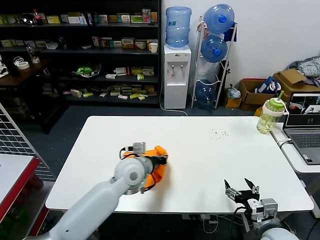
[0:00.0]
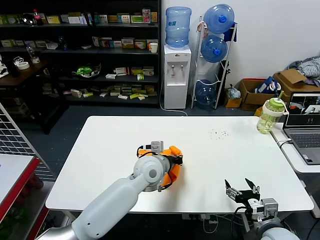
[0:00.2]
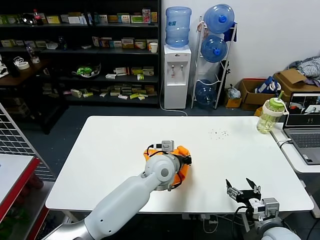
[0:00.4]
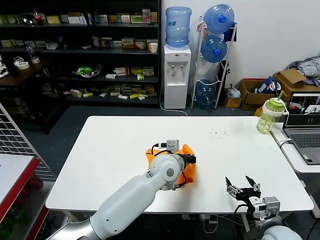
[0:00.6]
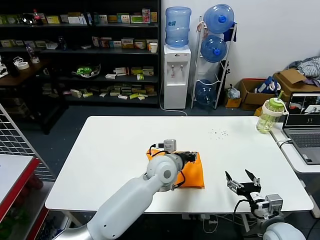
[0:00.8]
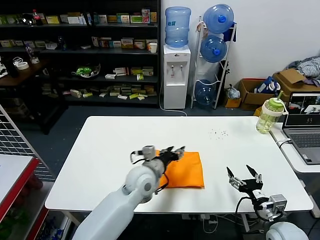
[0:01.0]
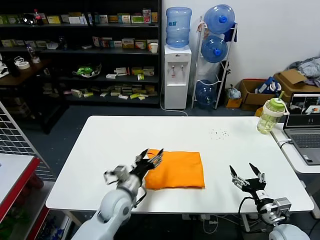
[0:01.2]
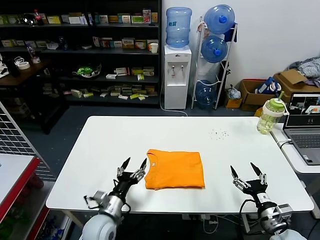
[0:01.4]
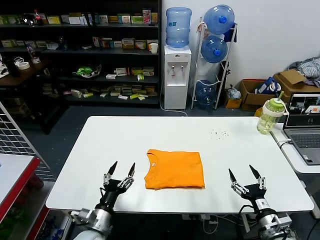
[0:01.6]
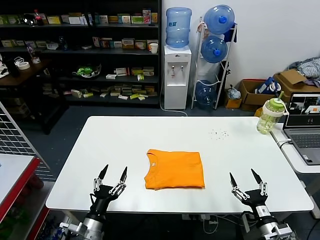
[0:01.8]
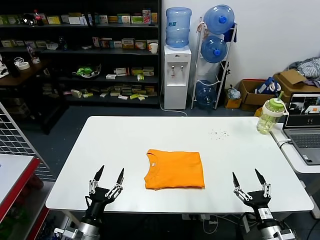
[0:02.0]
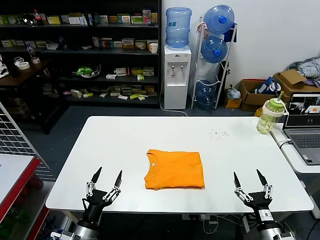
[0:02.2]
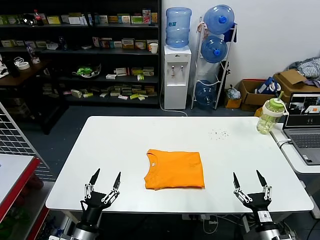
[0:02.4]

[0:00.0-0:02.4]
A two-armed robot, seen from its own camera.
Task of the whole recording: fold and organize the clothes.
0:00.0 to 0:01.2: The left gripper travels downward by approximately 5 cm, goes to the right and returns, roughly 15 cm each way, and opens its fingers. The right gripper ends up some 5 cm from where it was.
0:01.2 to 0:02.4: The right gripper heads backward, covering some 5 cm; the left gripper is displaced backward and to the left by approximately 20 cm.

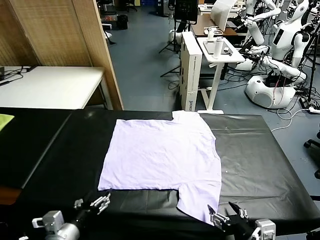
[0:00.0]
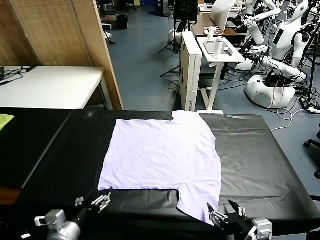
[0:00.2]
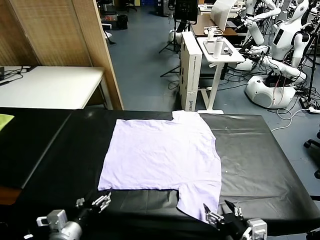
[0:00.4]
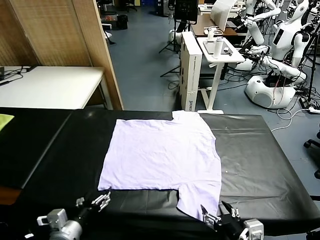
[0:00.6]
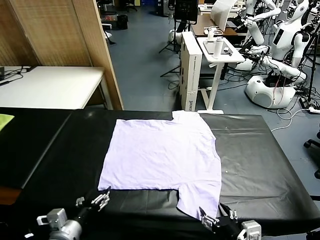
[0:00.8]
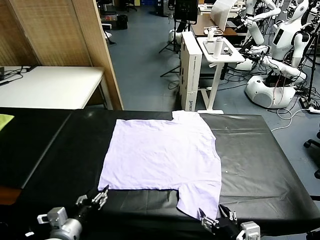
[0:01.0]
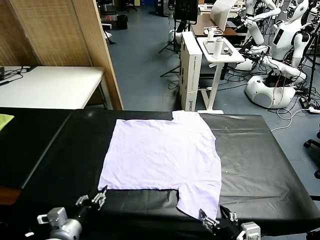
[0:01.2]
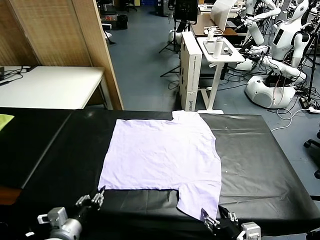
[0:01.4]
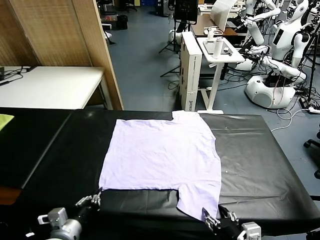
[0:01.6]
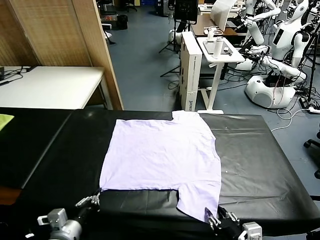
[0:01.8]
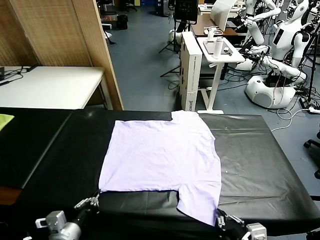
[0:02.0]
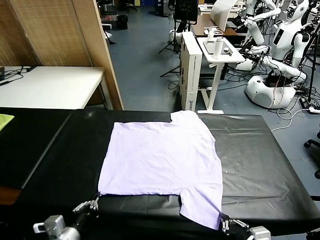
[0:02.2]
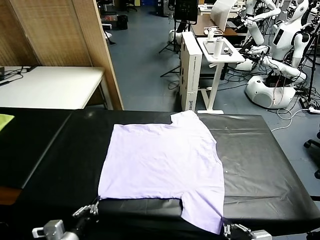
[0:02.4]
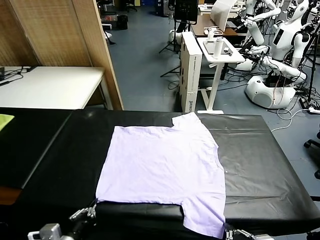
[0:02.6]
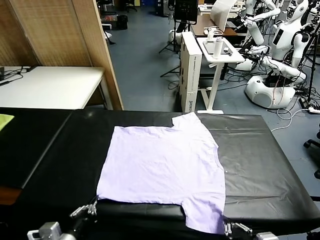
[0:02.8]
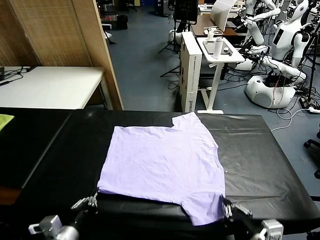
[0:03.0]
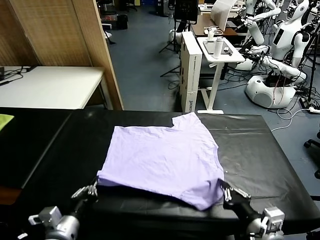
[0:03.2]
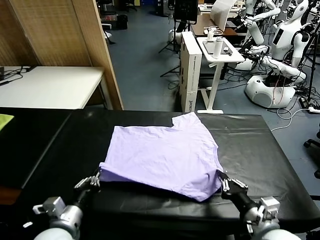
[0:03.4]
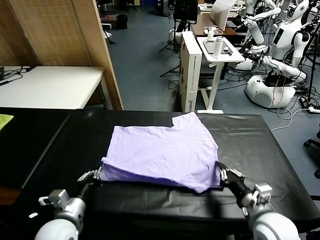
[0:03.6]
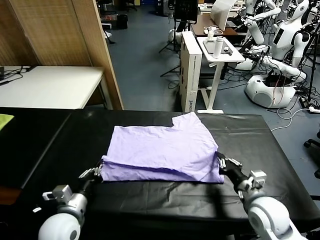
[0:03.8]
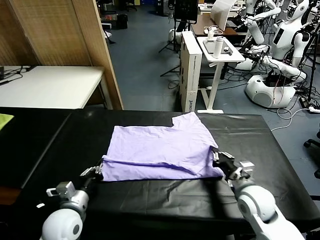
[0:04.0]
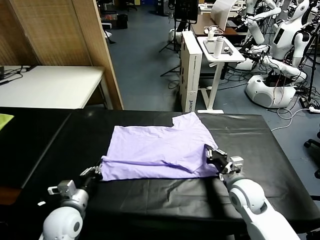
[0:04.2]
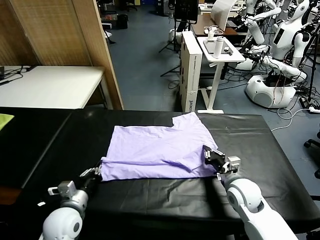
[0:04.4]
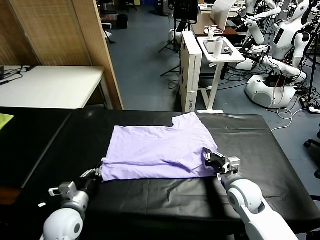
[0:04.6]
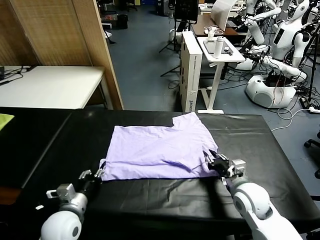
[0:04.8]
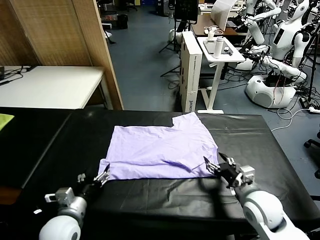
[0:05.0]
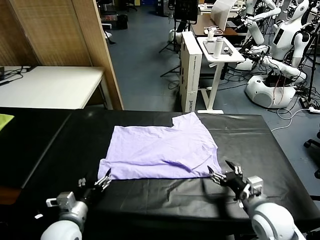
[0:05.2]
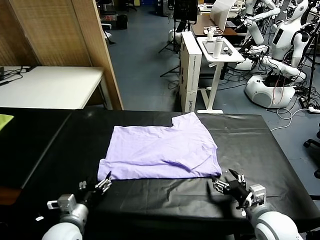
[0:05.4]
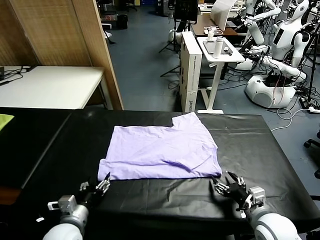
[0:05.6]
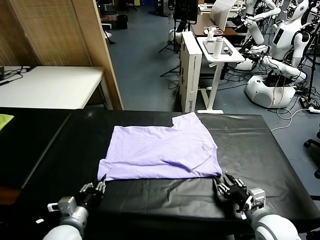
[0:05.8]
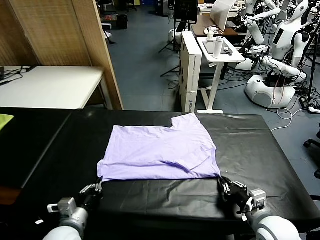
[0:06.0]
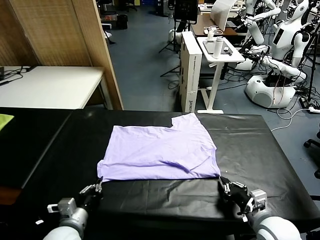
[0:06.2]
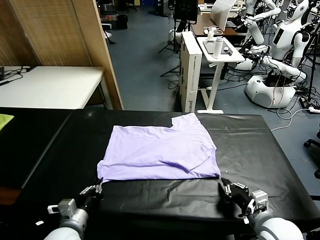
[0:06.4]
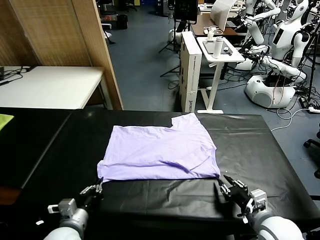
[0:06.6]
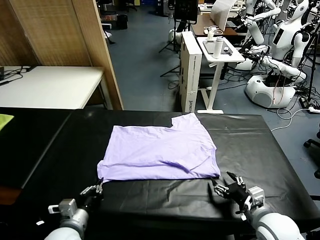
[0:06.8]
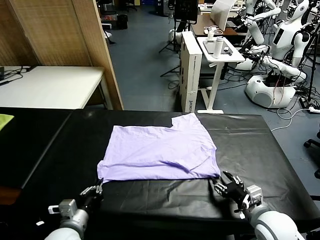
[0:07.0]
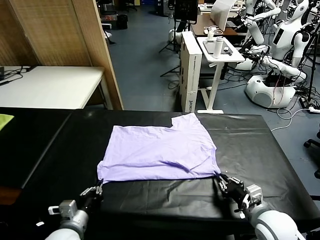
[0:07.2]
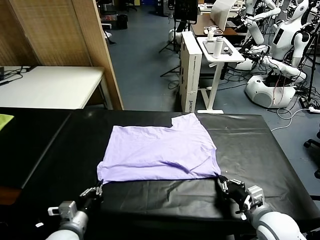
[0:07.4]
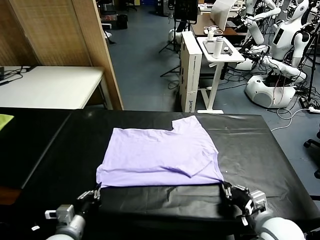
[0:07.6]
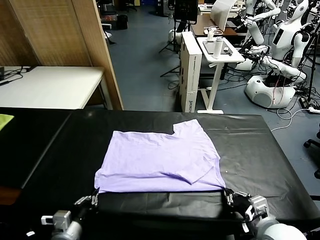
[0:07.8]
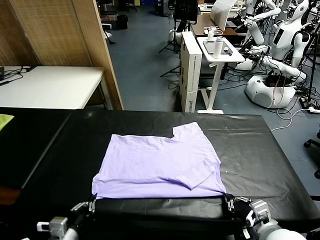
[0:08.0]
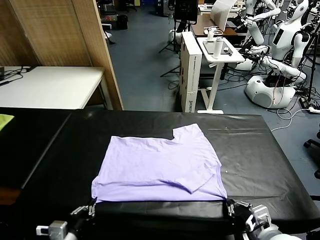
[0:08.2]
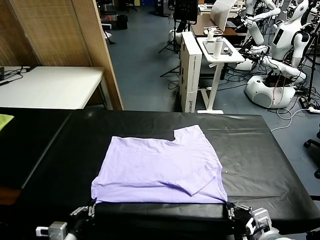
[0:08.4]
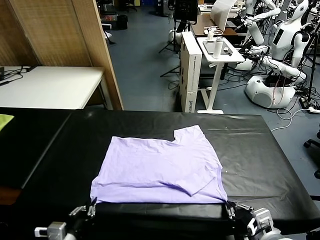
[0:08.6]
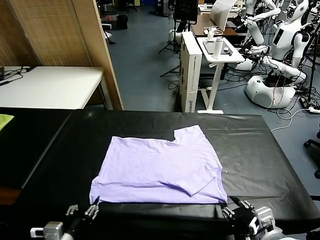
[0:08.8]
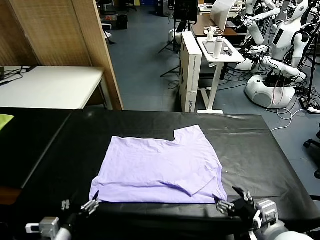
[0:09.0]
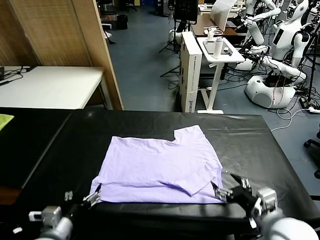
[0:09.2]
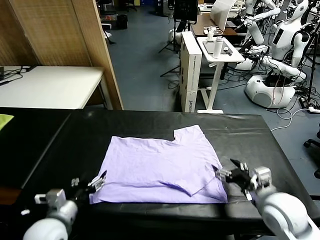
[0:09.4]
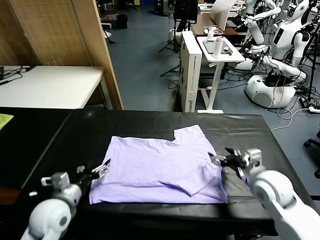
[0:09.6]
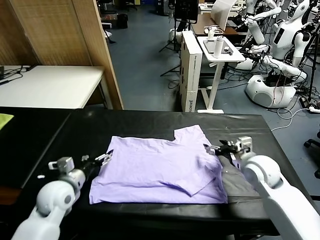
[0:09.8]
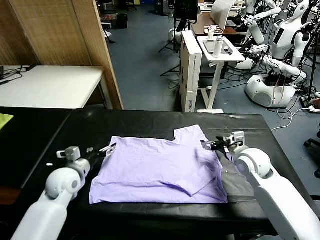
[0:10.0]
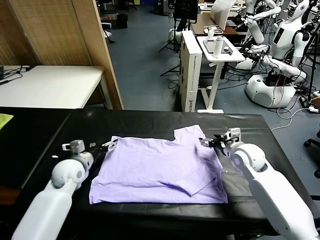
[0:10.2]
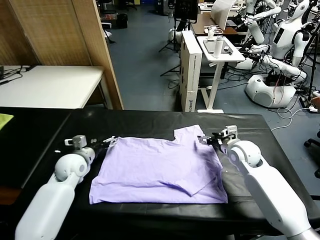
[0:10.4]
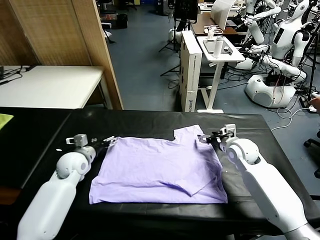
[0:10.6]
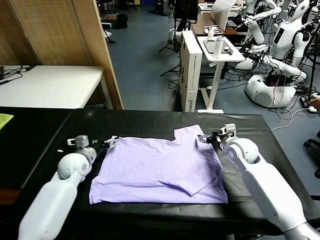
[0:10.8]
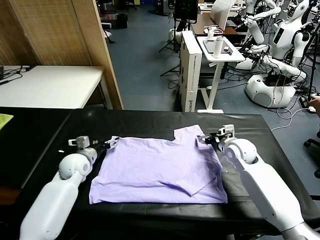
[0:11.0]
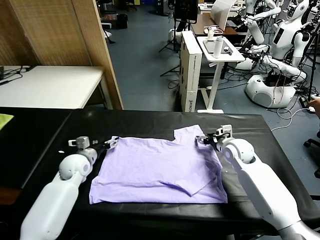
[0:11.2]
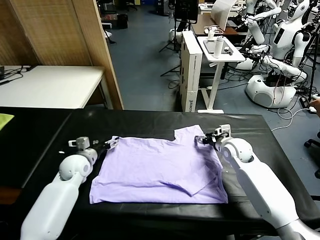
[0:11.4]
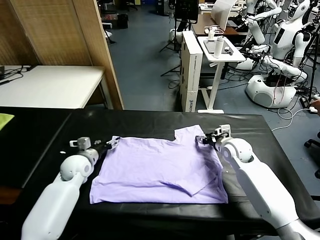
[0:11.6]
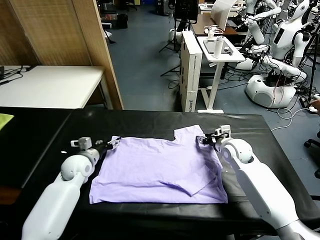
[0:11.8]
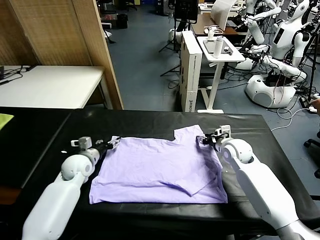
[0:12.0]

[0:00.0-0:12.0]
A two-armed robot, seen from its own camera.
Task of the whole recording: fold and organize the clothes.
Step, 0:00.0 to 0:02.0: use both grippers simultaneously to clamp the lower edge of the clothing fabric.
Step, 0:02.2 to 0:05.0: use both grippers to drag the lower edge of the fabric forward and fold it over the upper edge.
Step, 0:05.2 to 0:08.8: Drag the clothes downward with both gripper.
0:01.6 to 0:03.0: The right gripper changes place by some 5 cm.
0:03.0 to 0:04.4: The right gripper shifts approximately 15 cm forward and downward, while the left gripper shifts about 10 cm forward.
0:04.4 to 0:06.0: The right gripper is displaced backward by about 10 cm, and opens, then closes once more. Meanwhile the left gripper opens, then closes again.
0:06.0 to 0:07.6: The right gripper opens and closes again.
0:07.6 to 0:09.0: The right gripper opens its fingers. The left gripper opens its fingers.
0:09.0 to 0:10.4: The two grippers go approximately 25 cm forward.
0:10.4 to 0:12.0: The right gripper closes up.

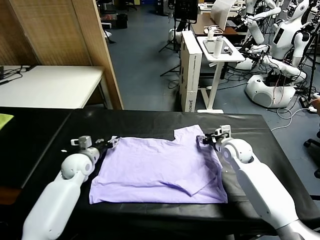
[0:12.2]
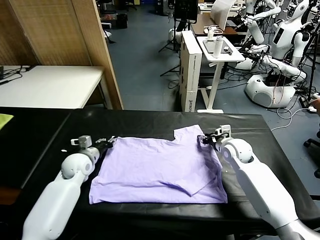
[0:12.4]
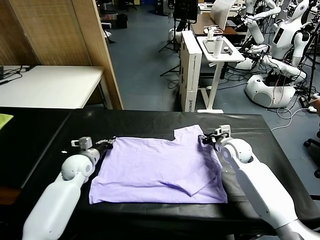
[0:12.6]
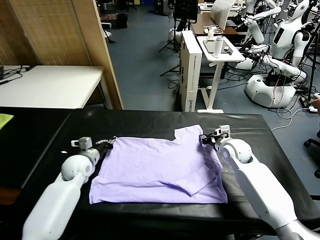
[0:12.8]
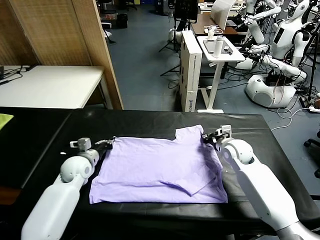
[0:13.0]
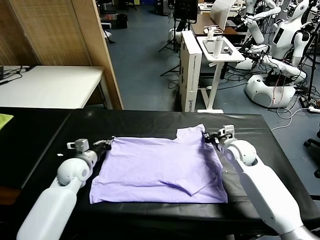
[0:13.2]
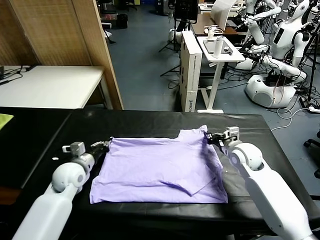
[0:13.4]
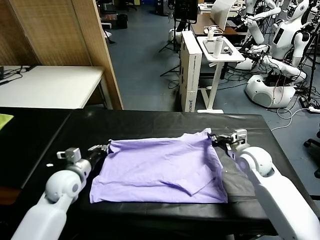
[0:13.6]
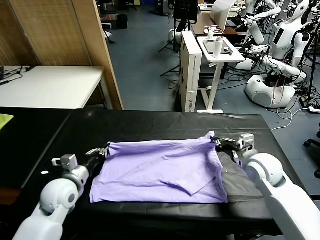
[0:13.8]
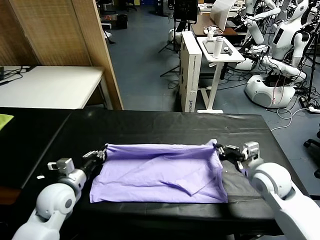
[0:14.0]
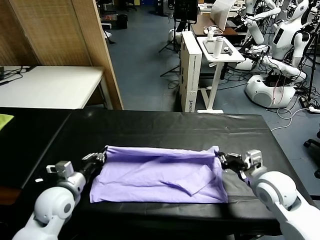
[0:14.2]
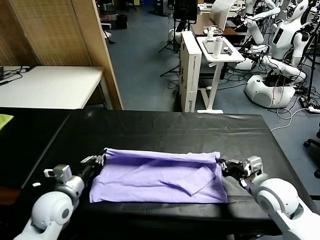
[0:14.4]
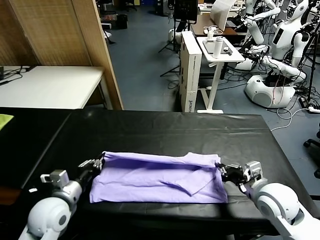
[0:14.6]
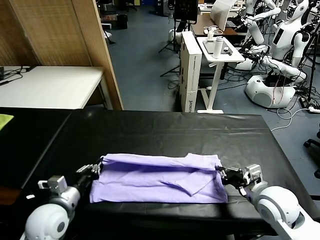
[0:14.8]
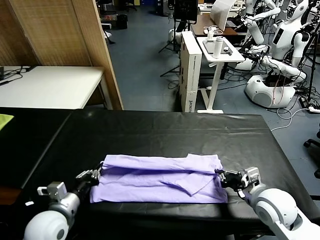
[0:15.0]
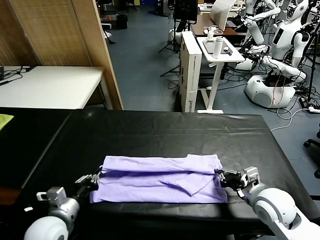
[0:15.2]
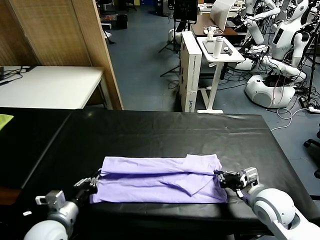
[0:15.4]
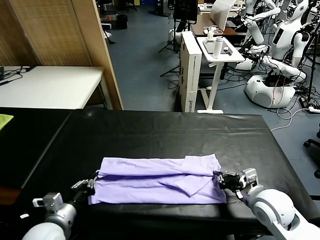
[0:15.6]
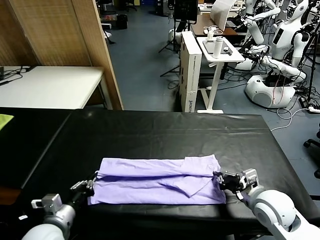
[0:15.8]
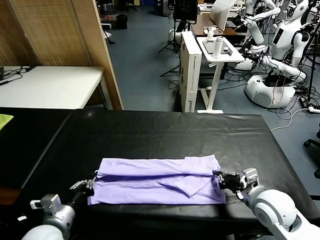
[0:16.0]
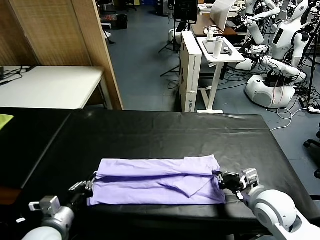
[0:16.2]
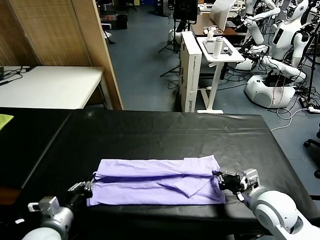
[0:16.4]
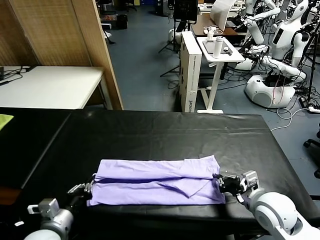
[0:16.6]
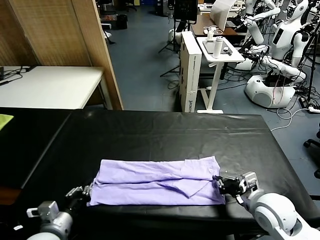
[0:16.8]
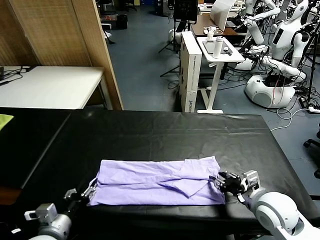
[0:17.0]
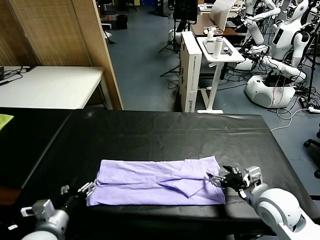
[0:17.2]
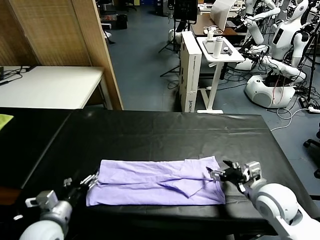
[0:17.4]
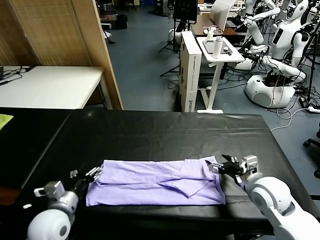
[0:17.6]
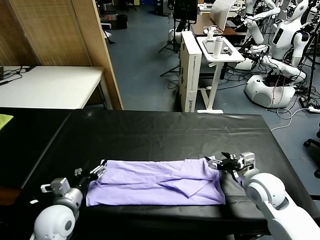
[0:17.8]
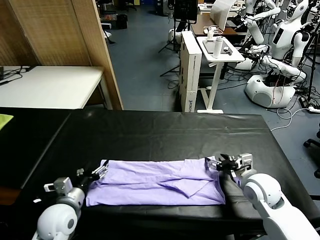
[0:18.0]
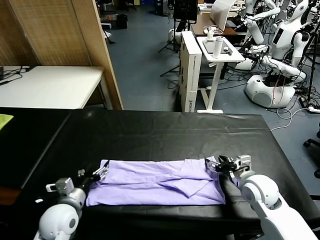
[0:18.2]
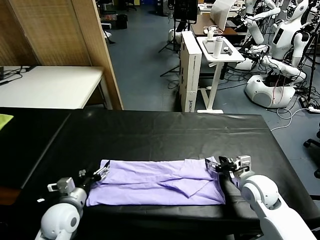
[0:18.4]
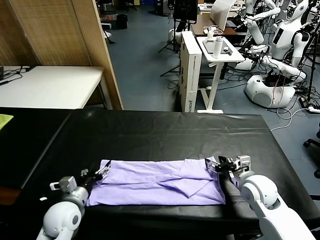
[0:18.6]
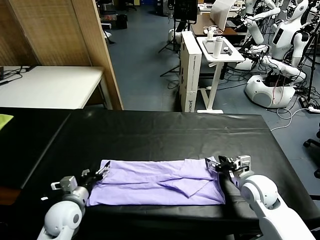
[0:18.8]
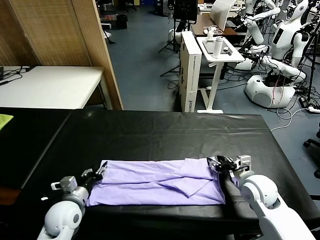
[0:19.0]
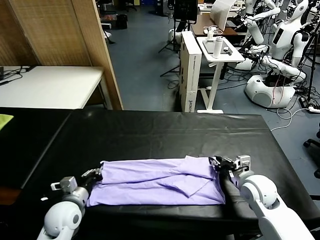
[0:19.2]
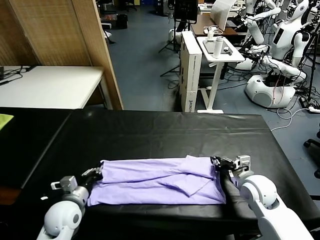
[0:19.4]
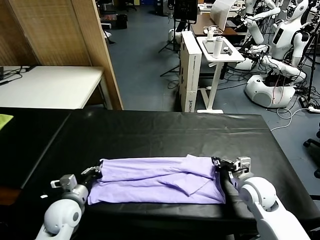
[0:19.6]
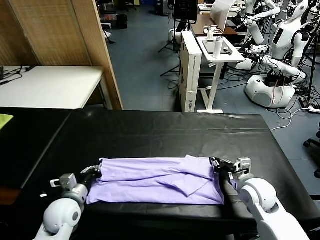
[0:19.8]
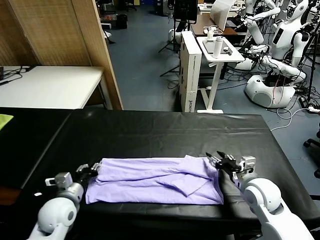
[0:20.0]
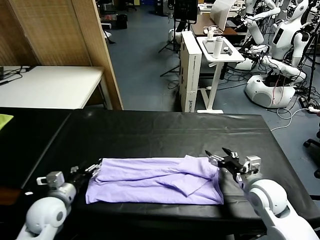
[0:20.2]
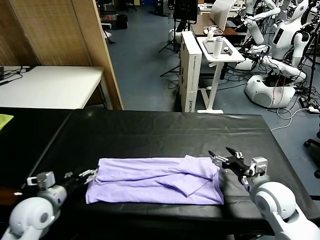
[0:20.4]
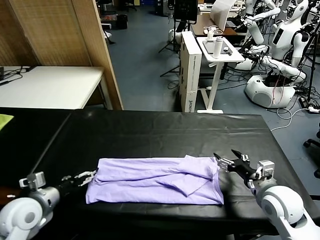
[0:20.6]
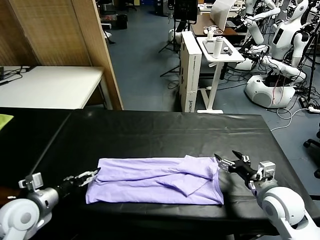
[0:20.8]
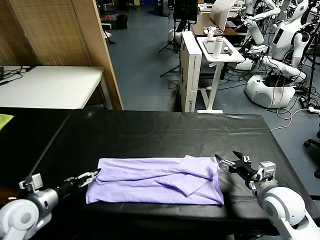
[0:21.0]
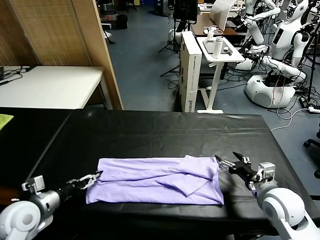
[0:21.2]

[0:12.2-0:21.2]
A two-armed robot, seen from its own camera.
Task of the whole recording: fold and organize the clothes.
Step, 0:13.2 to 0:17.0: use both grippers to drag the upper edge of the fabric backward and fold it over the lower edge.
0:12.2 to 0:13.8: The left gripper shifts roughly 15 cm backward, and closes; the right gripper moves backward and upward, roughly 15 cm, and closes up.
0:13.8 to 0:15.2: The left gripper goes roughly 10 cm backward. The right gripper shifts roughly 5 cm backward.
0:15.2 to 0:16.6: The grippers stay close to where they were, moving slightly.
0:16.6 to 0:18.2: Both grippers travel together forward, approximately 5 cm. The left gripper opens up. The right gripper opens up.
0:18.2 to 0:19.8: The right gripper closes, then opens again, while the left gripper closes.
0:19.8 to 0:21.2: The left gripper is displaced to the left and upward by roughly 10 cm, and opens its fingers, while the right gripper shifts by roughly 5 cm, and opens up.
